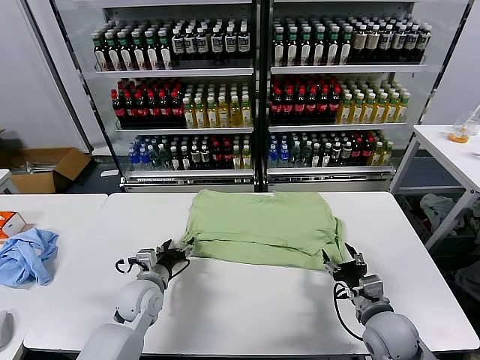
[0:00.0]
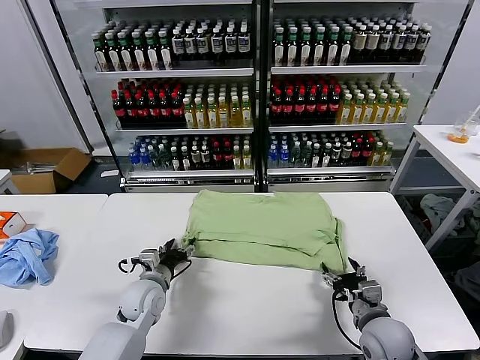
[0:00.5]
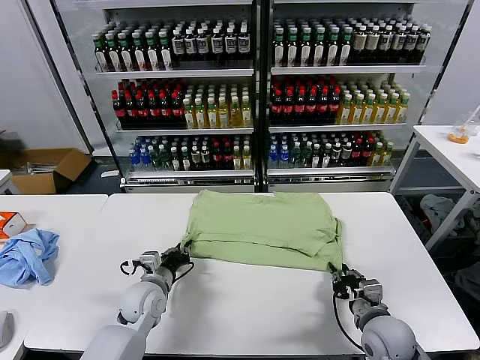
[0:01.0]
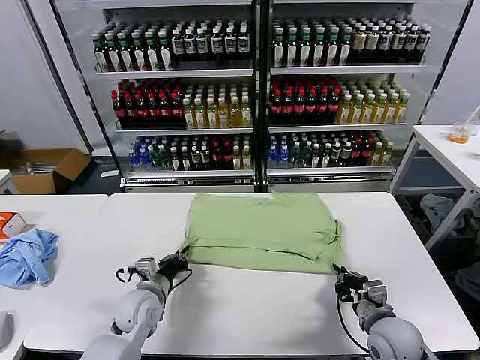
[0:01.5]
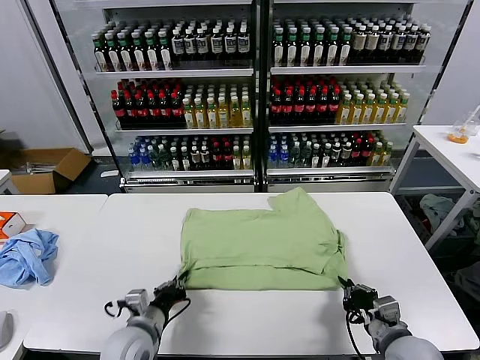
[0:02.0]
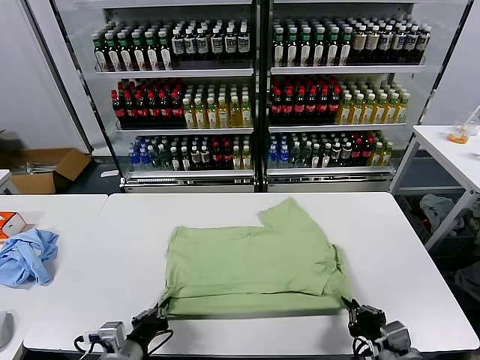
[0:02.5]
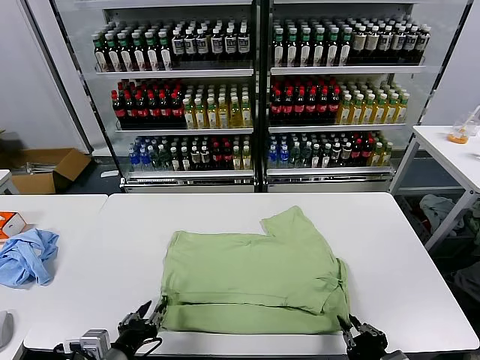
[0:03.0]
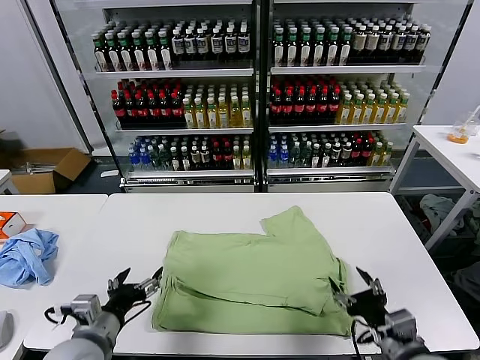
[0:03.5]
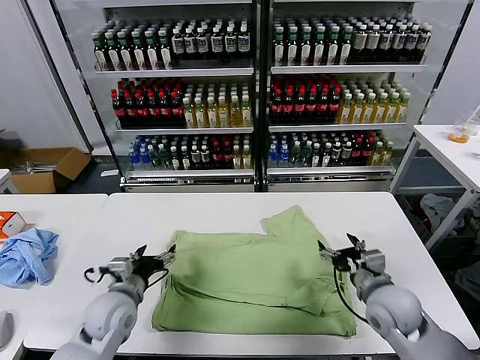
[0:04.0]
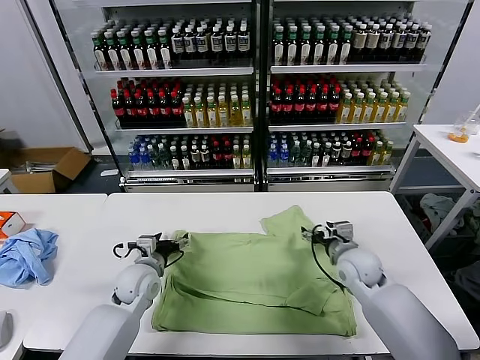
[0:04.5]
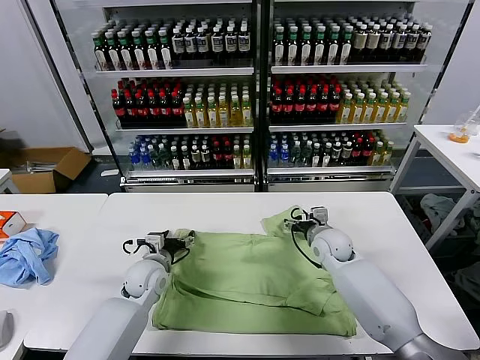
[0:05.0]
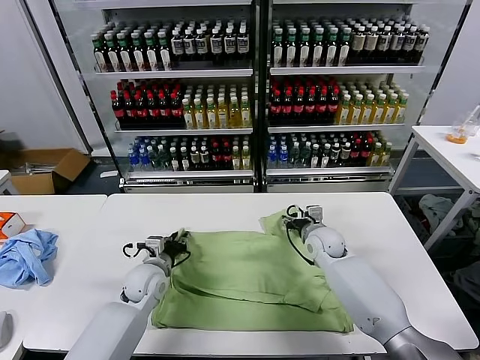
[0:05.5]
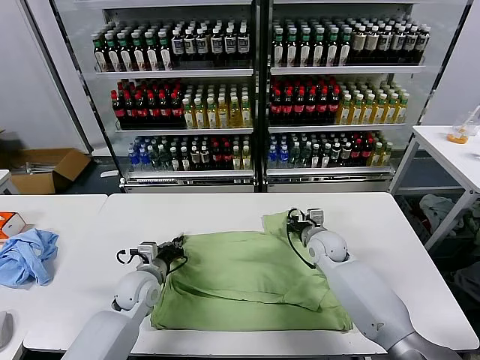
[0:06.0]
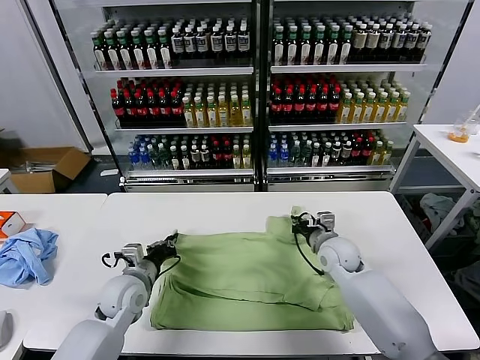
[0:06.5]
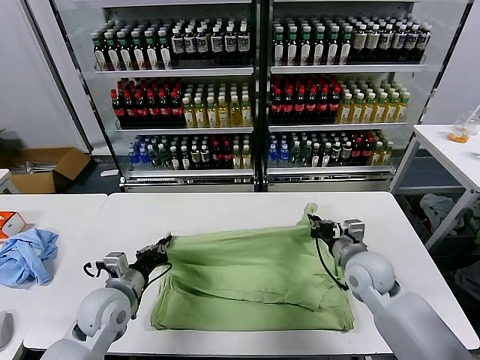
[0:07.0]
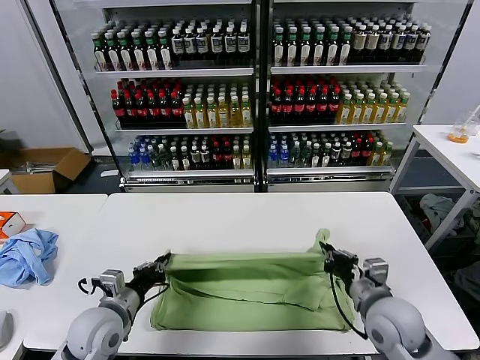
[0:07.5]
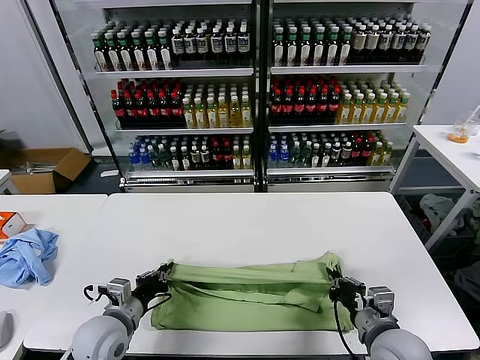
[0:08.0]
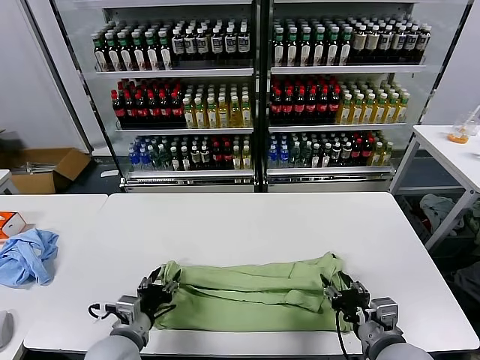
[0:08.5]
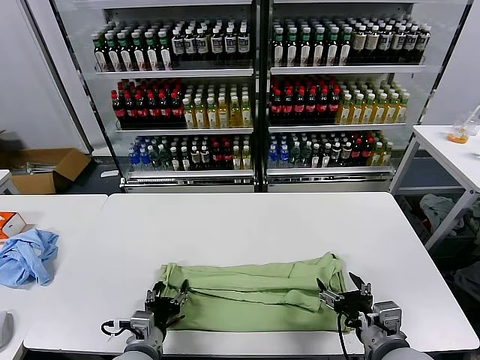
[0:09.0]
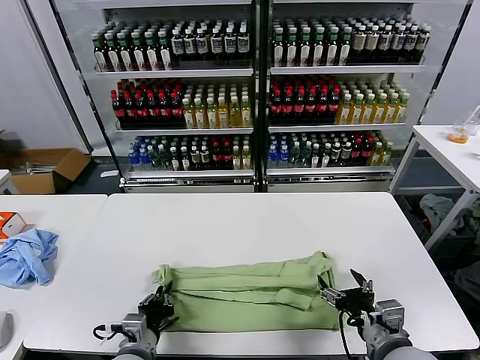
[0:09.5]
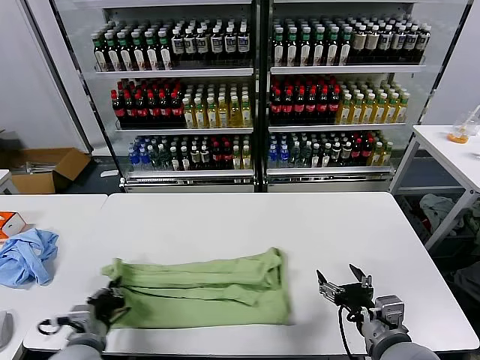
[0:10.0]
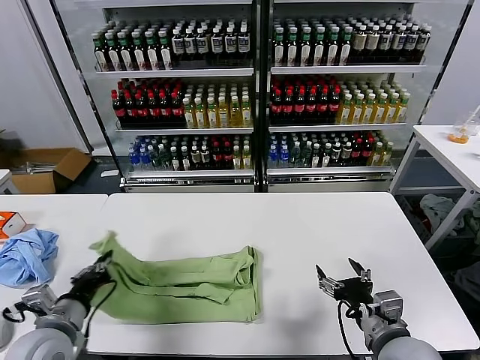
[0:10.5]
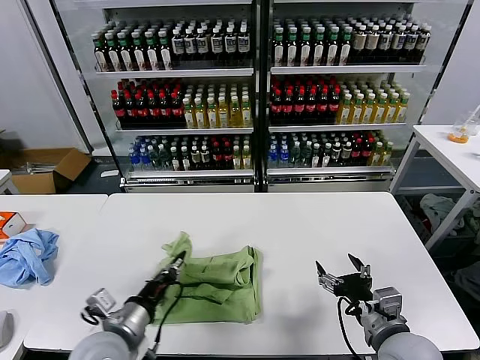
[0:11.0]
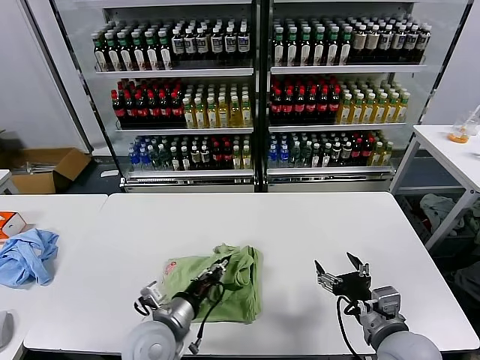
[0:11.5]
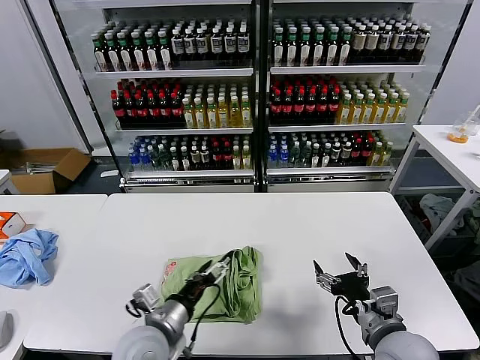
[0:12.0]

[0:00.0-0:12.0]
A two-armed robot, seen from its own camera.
Task of the whole recording: fold and organize the clothes.
Step, 0:00.0 to 0:03.0: Drag the clothes downward with both gripper.
Step, 0:03.5 to 0:05.5: use both grippers simultaneously to clamp the upper edge of the clothing fabric.
Step, 0:06.5 to 0:08.5: use both grippers to drag the upper edge of the fabric backward and fold it over the lower edge.
Step, 0:10.0 to 0:11.5: use the left gripper to drag the left edge of the fabric to the left and folds it over the right edge.
0:00.0 to 0:02.0: The left gripper heads backward, covering some 10 cm, and closes. The right gripper is displaced backward by approximately 5 cm, and closes up.
0:02.0 to 0:04.0: The right gripper heads forward, covering roughly 10 cm, and opens up. The left gripper heads forward, covering roughly 5 cm, and opens its fingers.
0:04.0 to 0:06.0: The left gripper heads forward, covering about 5 cm, and closes its fingers. Meanwhile the right gripper goes roughly 15 cm forward and to the left, and closes its fingers.
0:06.0 to 0:08.0: The right gripper heads backward, covering approximately 25 cm; the left gripper heads backward, covering about 10 cm.
0:08.0 to 0:10.0: The right gripper opens, while the left gripper moves backward, approximately 5 cm, reaches roughly 5 cm to the right, then returns, and opens and closes again.
0:10.0 to 0:12.0: The left gripper shifts roughly 15 cm to the right, and opens.

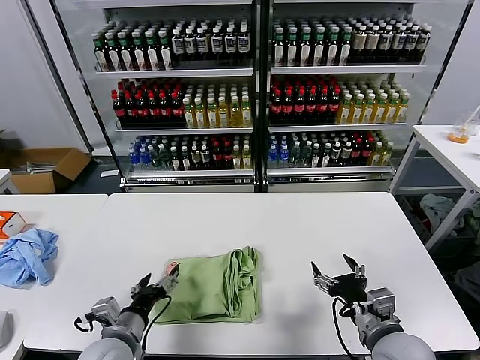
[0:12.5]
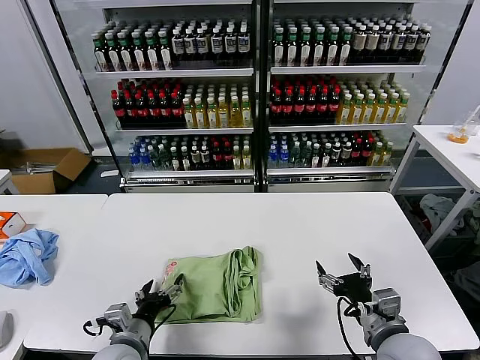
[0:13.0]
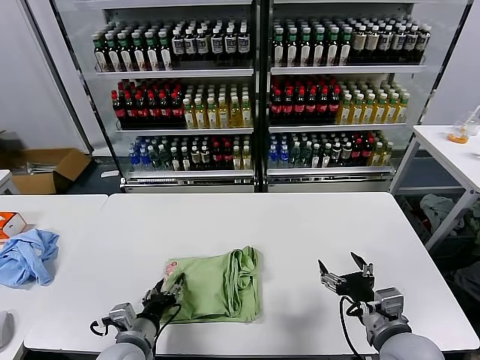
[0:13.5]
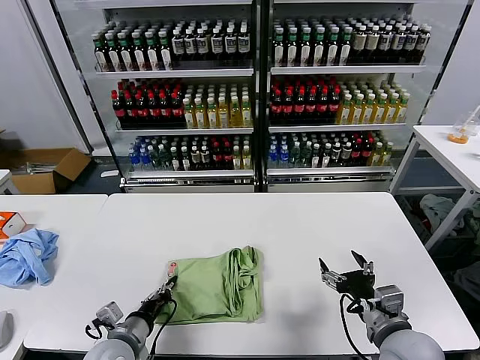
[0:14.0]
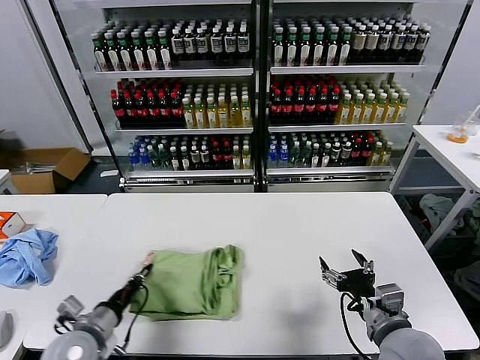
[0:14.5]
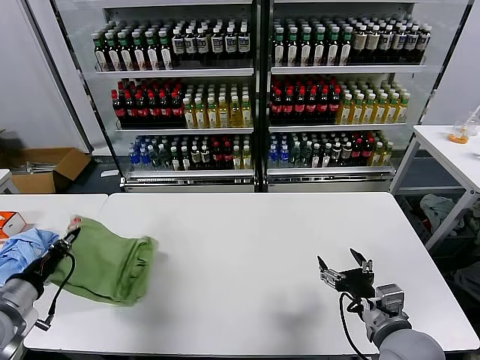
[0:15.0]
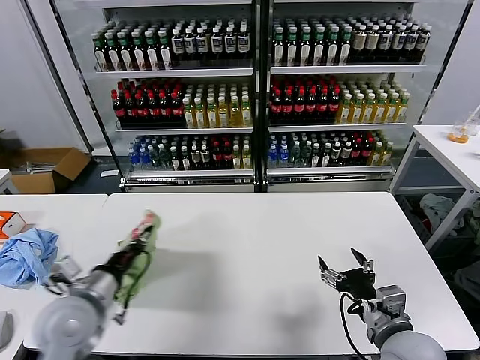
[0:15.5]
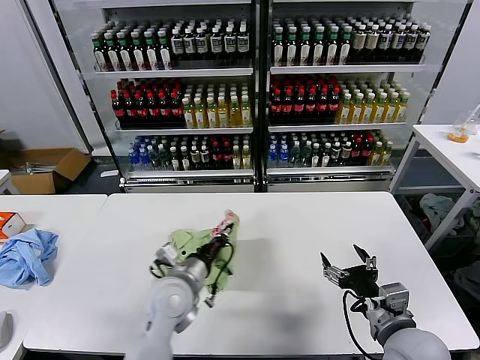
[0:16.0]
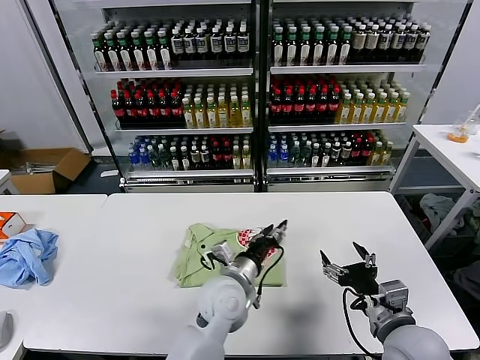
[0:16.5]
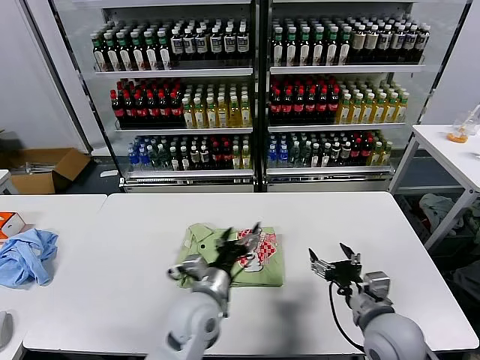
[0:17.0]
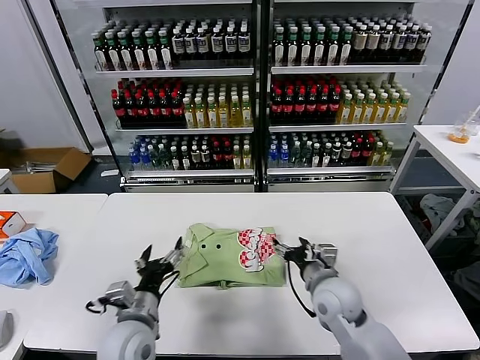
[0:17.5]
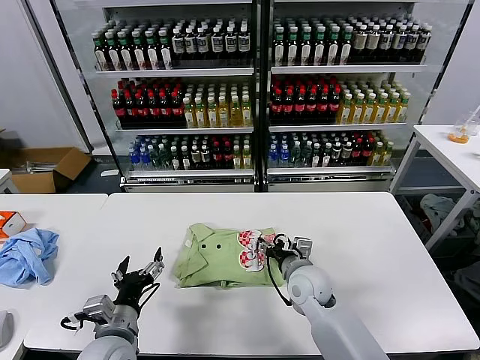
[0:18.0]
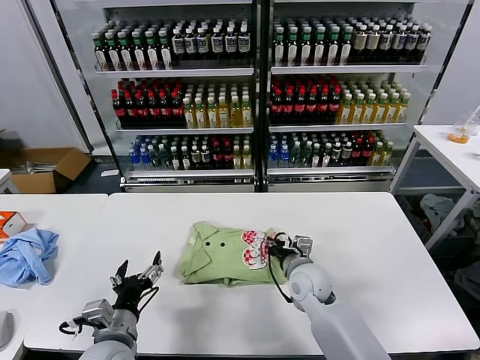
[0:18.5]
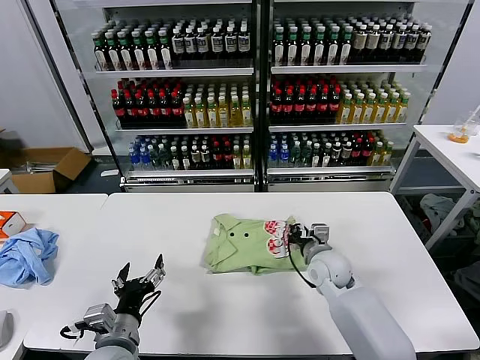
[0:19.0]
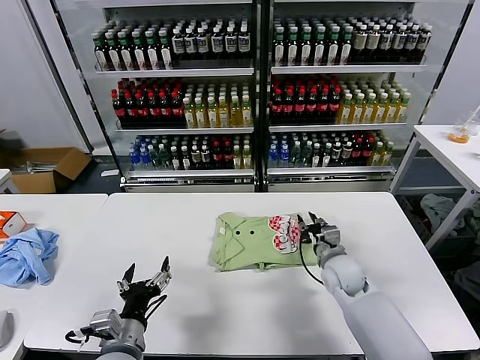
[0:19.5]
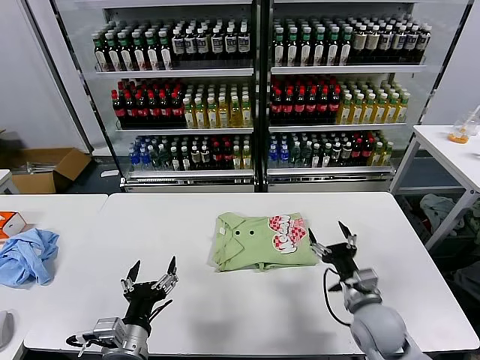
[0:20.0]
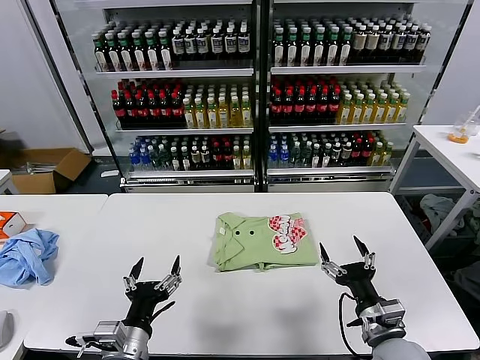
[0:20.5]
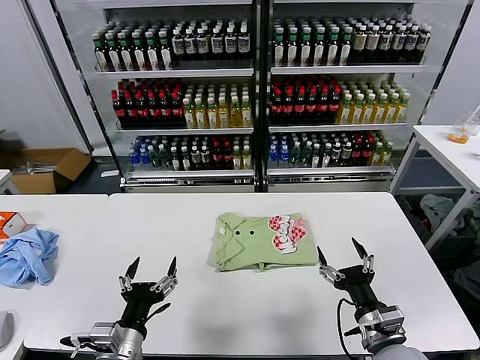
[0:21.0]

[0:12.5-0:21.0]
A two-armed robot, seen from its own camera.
Task of the whole recording: fold and organize the clothes.
Step, 0:12.5 to 0:16.0: Flip the folded clothes over with left gripper.
Step, 0:16.5 to 0:19.5: Drag the clothes to the center of the table.
0:12.5 to 0:14.5: The left gripper heads to the left, covering roughly 5 cm, and closes its fingers.
0:14.5 to 0:16.5: The left gripper travels to the right by approximately 25 cm, and opens.
0:16.5 to 0:19.0: The left gripper shifts roughly 25 cm to the left and backward, and opens its fingers. The right gripper goes about 20 cm forward and to the left, and closes.
0:19.0 to 0:21.0: The right gripper moves backward, about 20 cm, and opens its fingers.

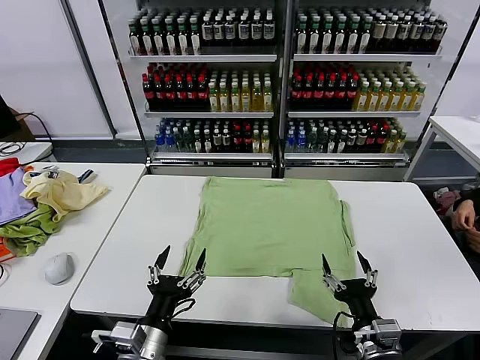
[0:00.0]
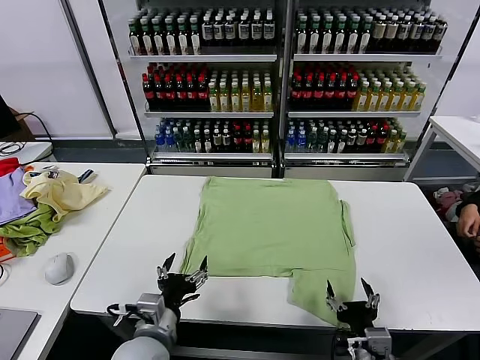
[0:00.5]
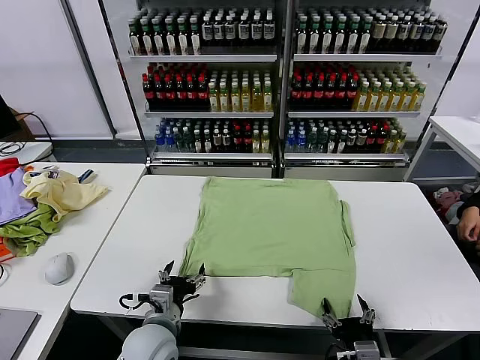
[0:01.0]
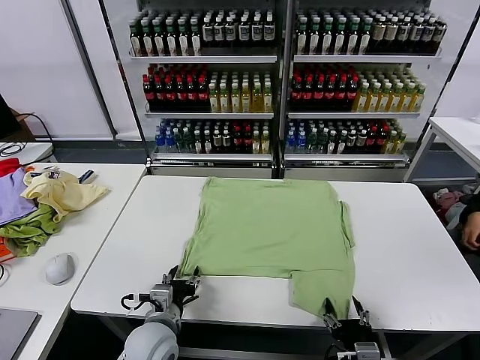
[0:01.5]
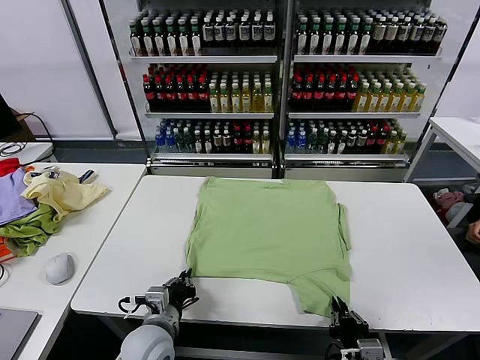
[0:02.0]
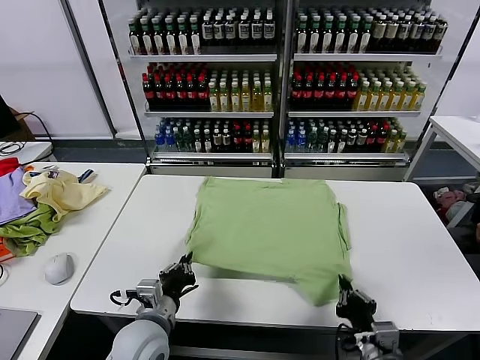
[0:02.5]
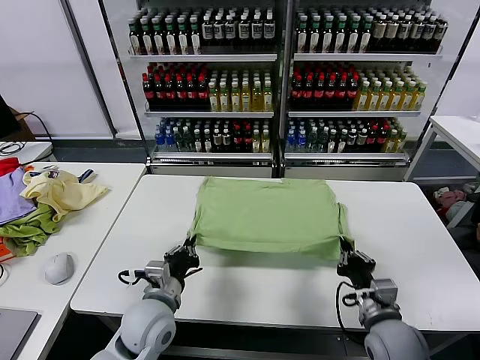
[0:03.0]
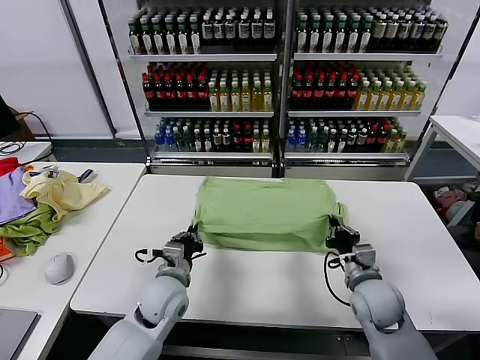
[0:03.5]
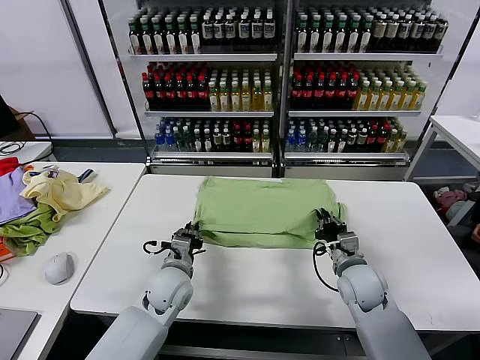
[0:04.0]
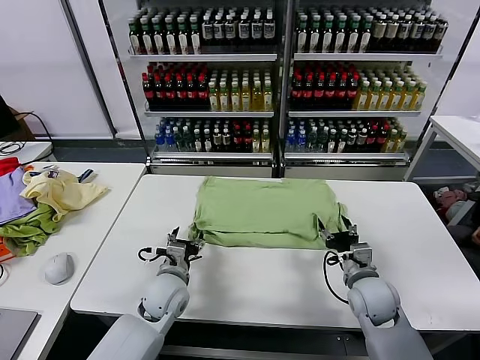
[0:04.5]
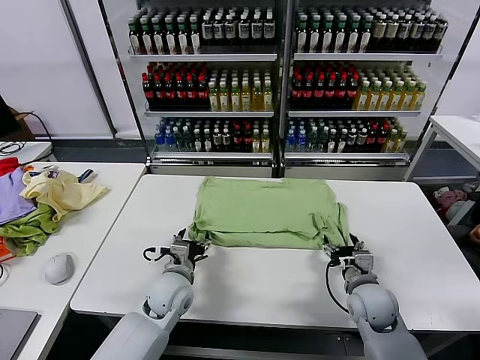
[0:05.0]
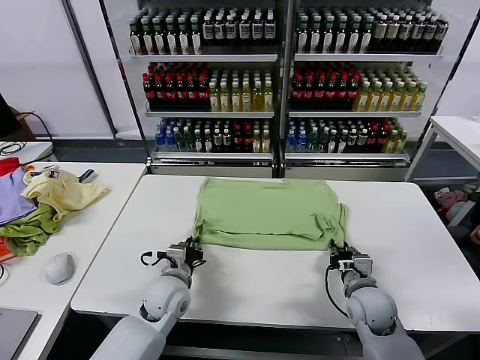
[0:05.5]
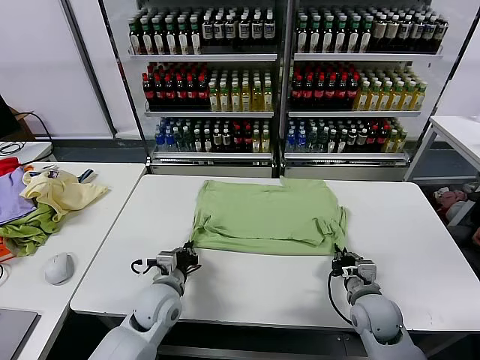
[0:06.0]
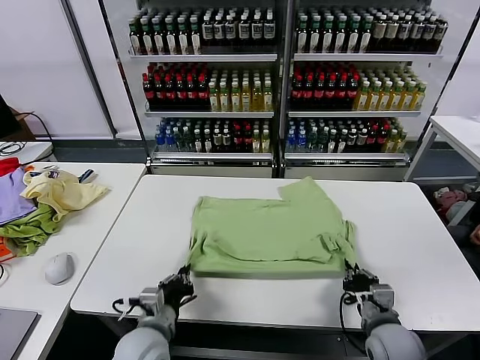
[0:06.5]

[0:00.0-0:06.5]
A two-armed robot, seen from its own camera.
Task of the whole recording: fold and organize the clothes.
Step, 0:00.0 to 0:02.0: use both grippers simultaneously to clamp the lower edge of the clothing fabric.
Step, 0:02.5 to 0:04.0: use both grippers to drag the lower edge of the fabric forward and fold it over the upper edge.
0:02.0 to 0:04.5: The left gripper goes roughly 10 cm forward, and opens up. The right gripper moves forward, roughly 20 cm, and opens up.
0:04.5 to 0:06.5: Both grippers move backward, roughly 10 cm. The right gripper closes its fingers, while the left gripper closes up.
